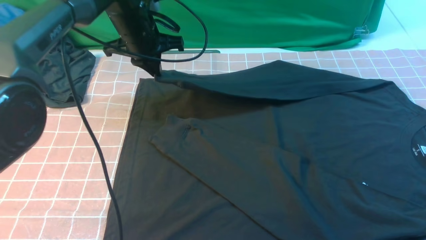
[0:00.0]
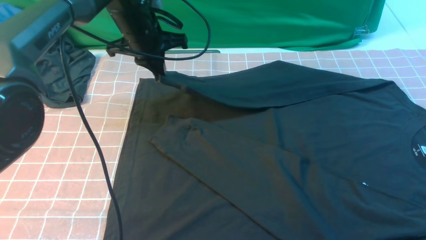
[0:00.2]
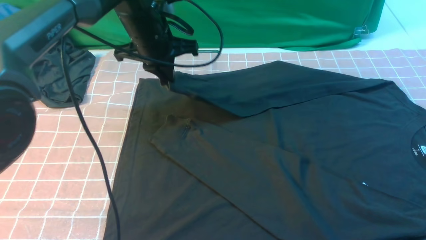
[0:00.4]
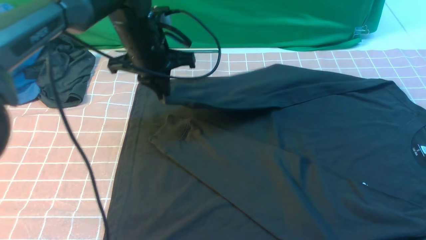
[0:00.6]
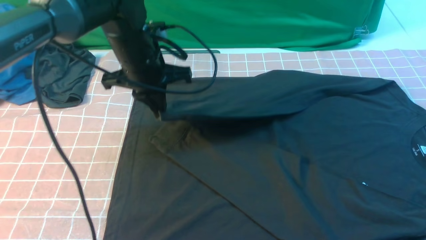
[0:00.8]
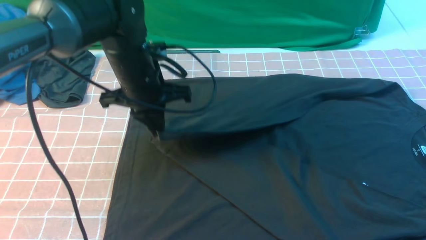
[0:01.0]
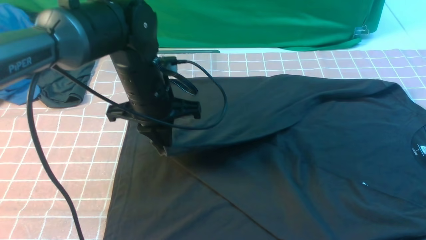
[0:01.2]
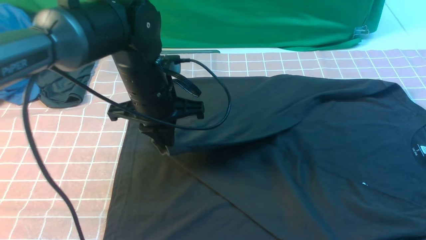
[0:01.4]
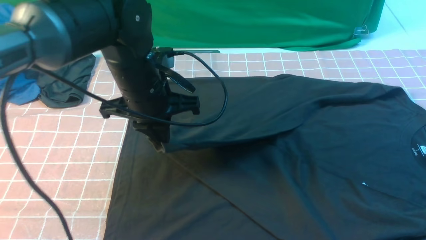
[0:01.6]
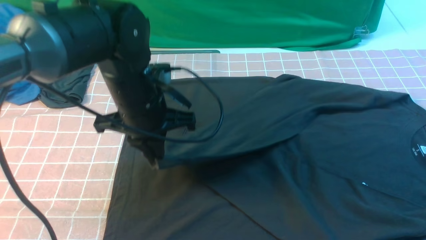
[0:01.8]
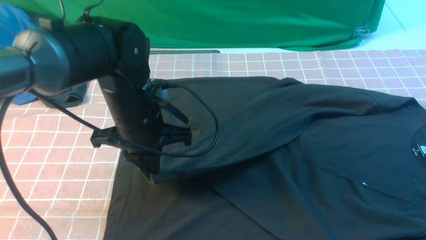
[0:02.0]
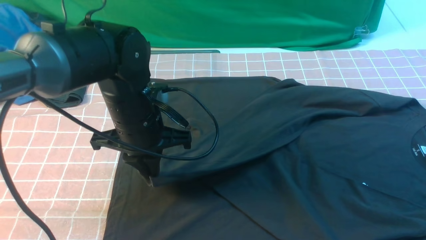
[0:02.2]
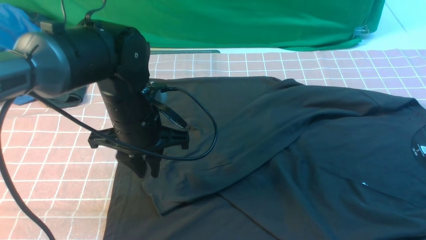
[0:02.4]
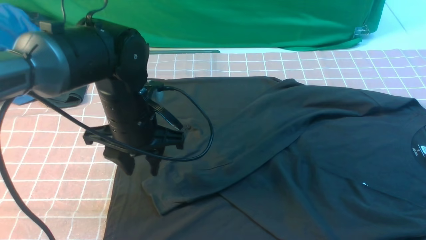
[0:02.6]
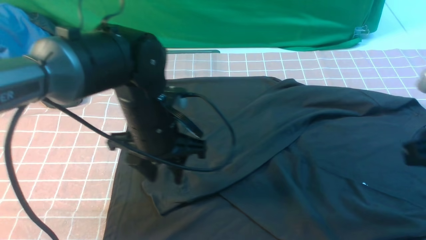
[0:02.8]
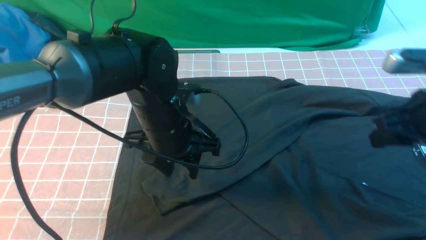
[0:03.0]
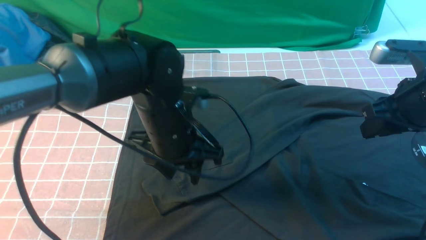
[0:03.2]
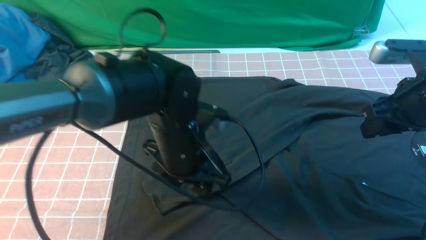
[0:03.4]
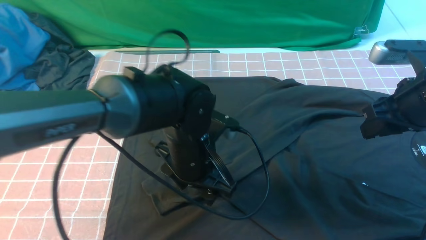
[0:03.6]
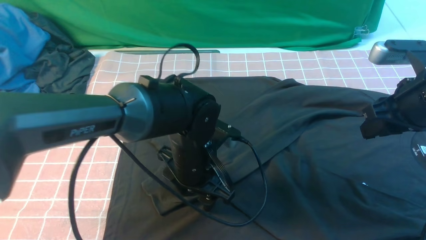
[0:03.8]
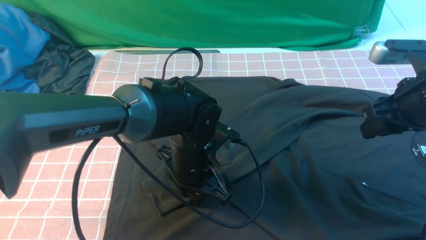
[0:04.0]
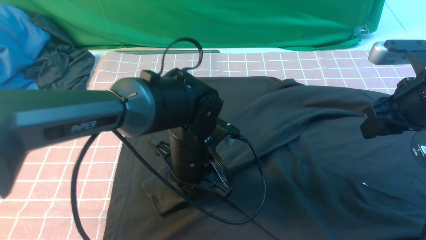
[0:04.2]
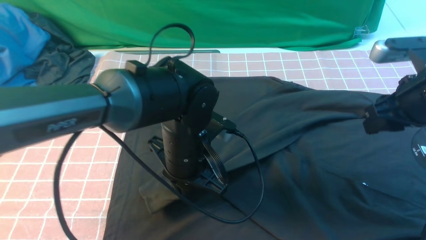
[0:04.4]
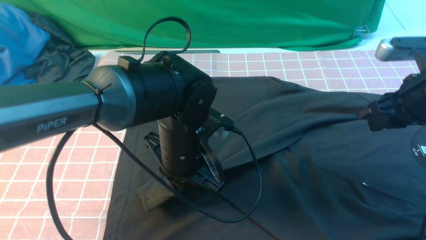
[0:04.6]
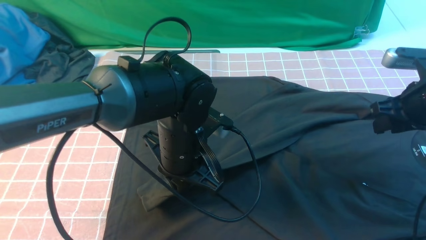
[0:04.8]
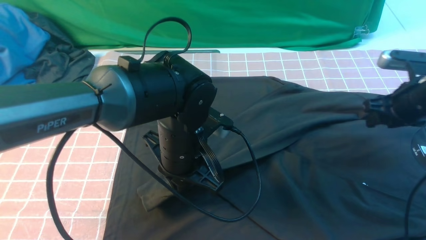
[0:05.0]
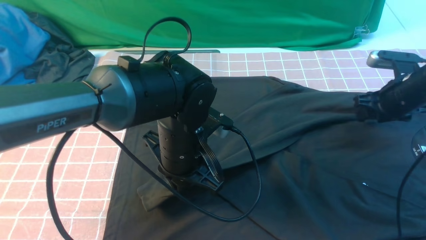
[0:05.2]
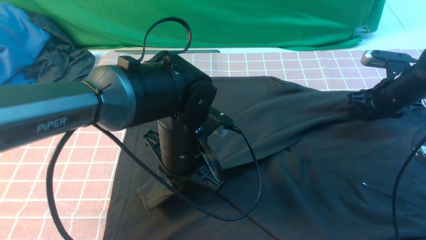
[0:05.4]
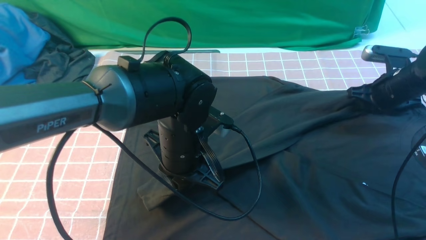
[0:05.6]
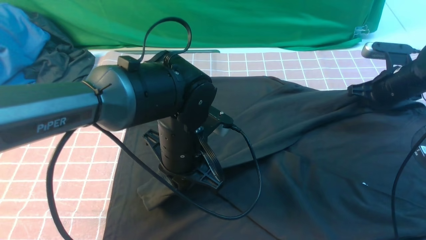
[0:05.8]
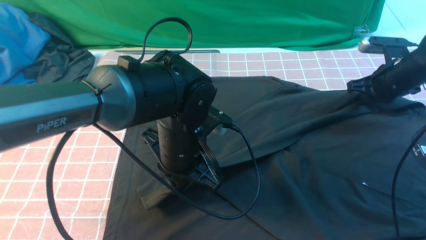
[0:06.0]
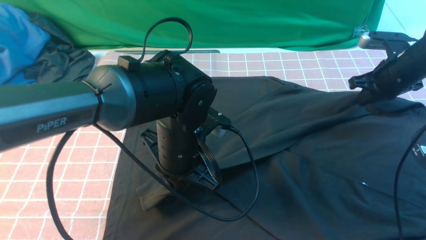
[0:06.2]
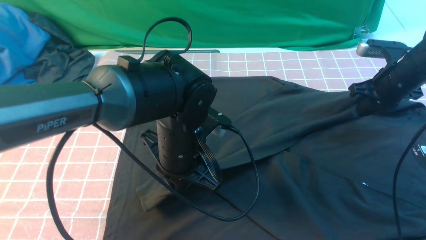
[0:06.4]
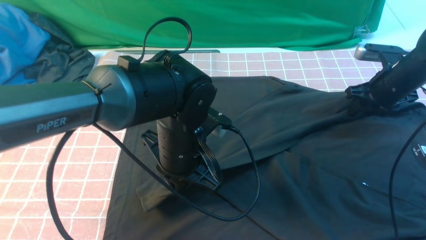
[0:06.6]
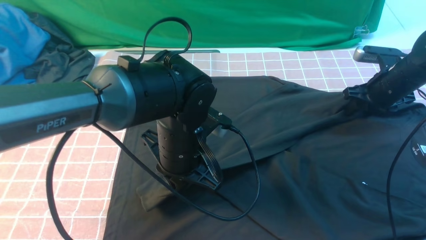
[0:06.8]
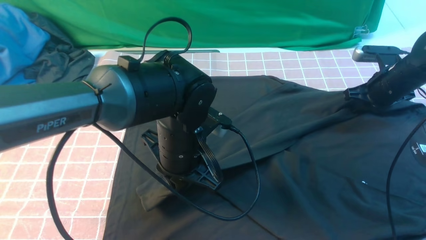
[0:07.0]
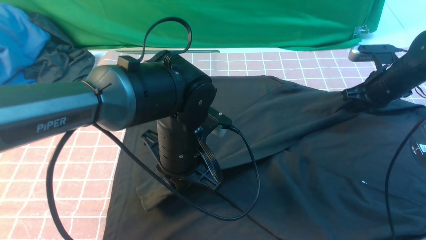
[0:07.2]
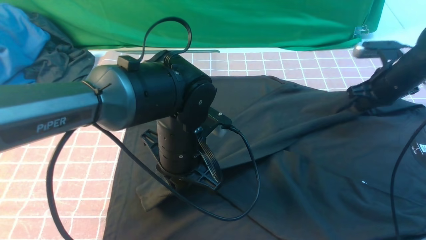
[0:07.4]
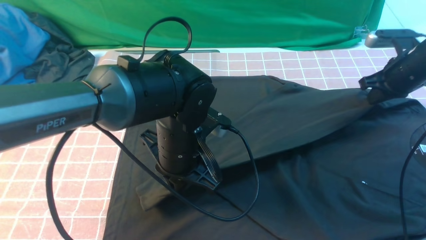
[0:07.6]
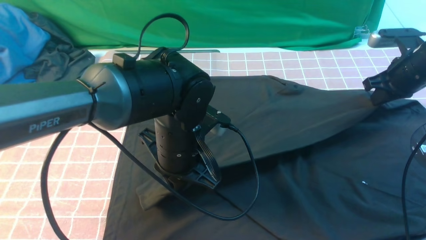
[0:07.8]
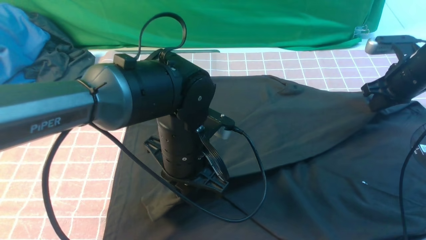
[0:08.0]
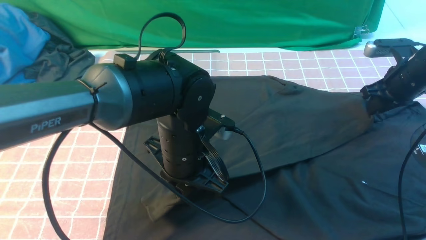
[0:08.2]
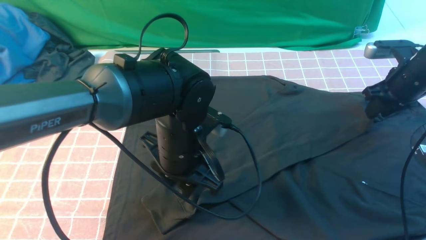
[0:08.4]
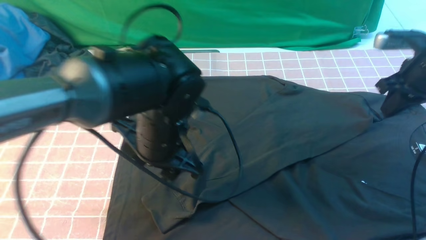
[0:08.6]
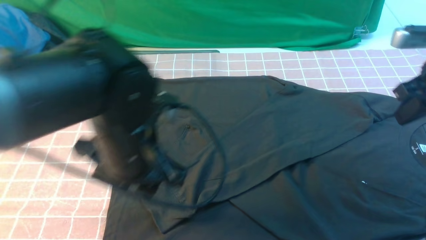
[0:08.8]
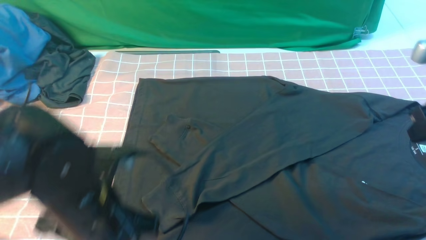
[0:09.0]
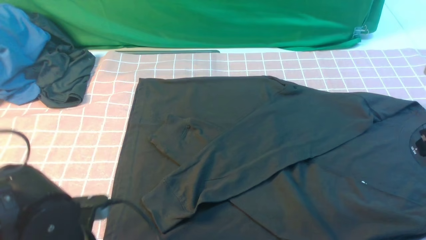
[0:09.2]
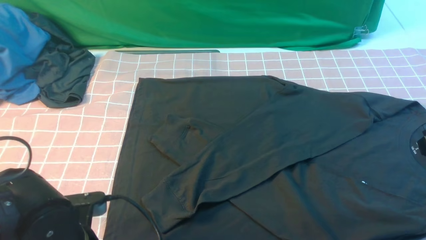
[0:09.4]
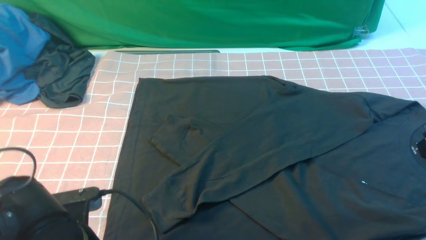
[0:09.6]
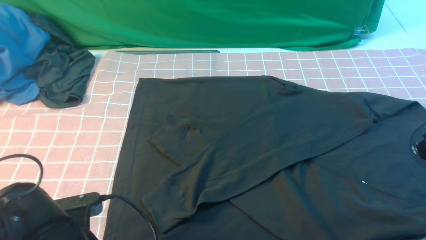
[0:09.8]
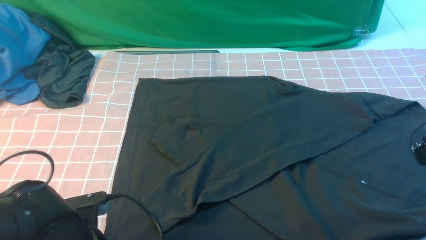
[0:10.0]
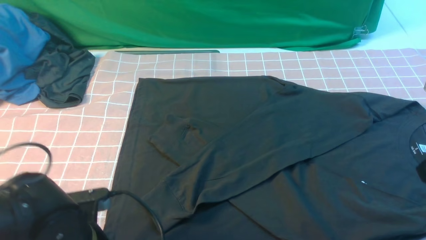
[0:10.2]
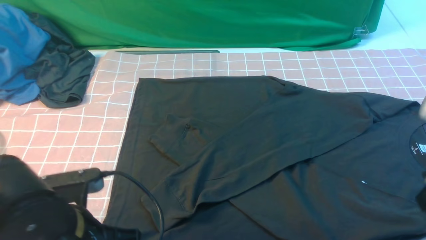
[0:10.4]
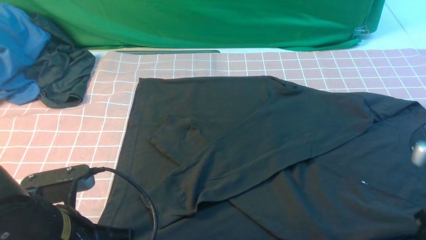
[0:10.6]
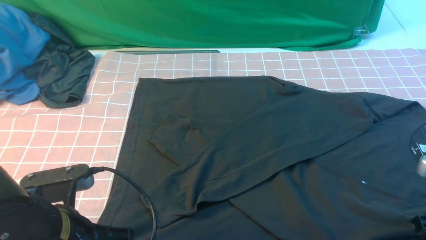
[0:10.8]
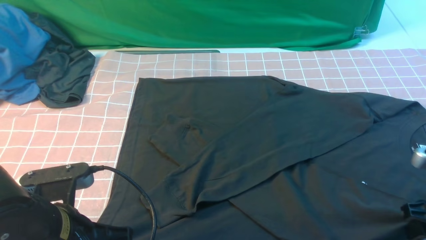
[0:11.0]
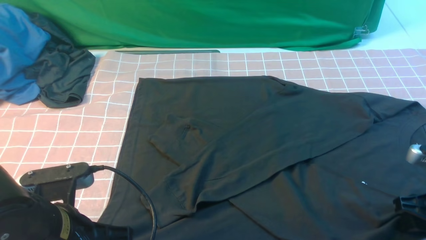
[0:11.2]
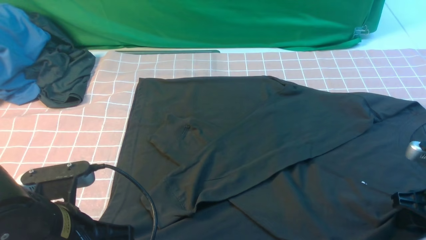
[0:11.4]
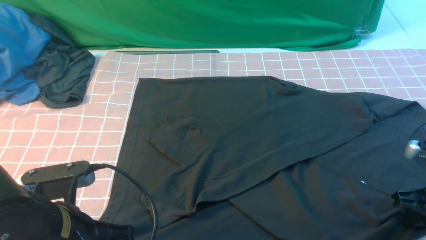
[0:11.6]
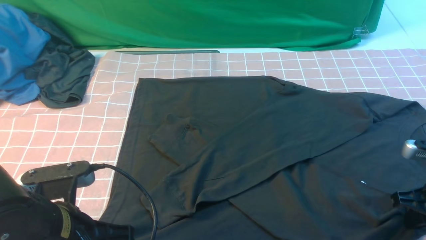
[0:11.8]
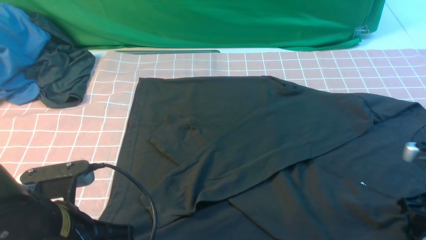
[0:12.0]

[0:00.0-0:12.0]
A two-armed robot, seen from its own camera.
Step, 0:00.0 to 0:02.8: use the left arm to drag and drop the cuff onto the cuff closest to the left arm.
0:00.0 to 0:01.6: The left gripper is displaced backward by approximately 15 cm.
0:01.6 to 0:03.0: The right gripper moves forward, about 10 cm, while the left gripper shifts by some 5 cm, and opens.
0:03.0 to 0:04.4: The left gripper closes up.
0:04.4 to 0:06.0: The right gripper is displaced forward and downward by about 15 cm, and closes up.
0:06.0 to 0:07.6: The right gripper opens, then closes again.
0:07.6 to 0:09.0: The right gripper travels backward and upward by some 20 cm, and opens and closes again. The left gripper moves backward and to the left, some 15 cm, and opens.
0:09.0 to 0:10.4: The right gripper heads backward, covering roughly 5 cm. Meanwhile the left gripper closes.
0:10.4 to 0:12.0: The right gripper heads downward, covering roughly 5 cm, and opens, then closes once more.

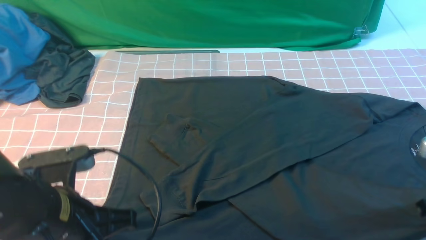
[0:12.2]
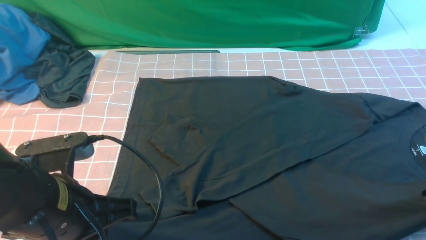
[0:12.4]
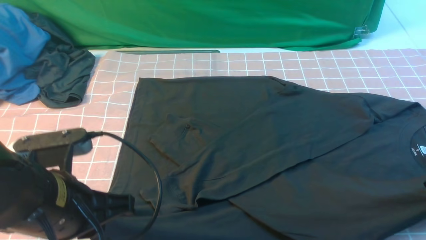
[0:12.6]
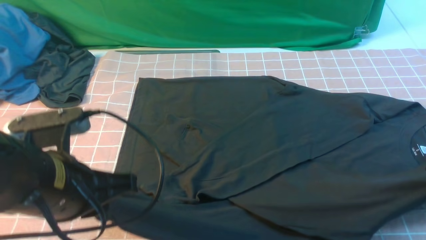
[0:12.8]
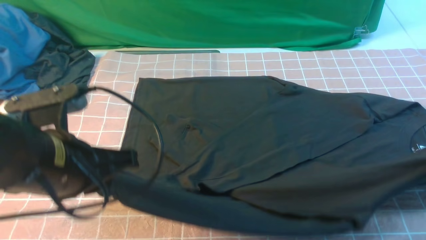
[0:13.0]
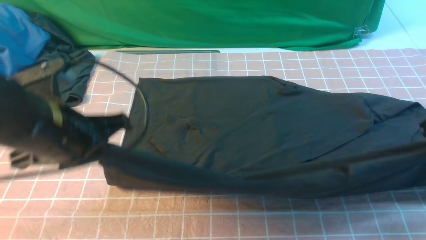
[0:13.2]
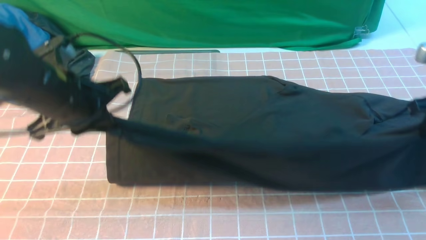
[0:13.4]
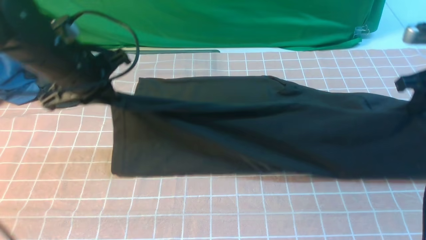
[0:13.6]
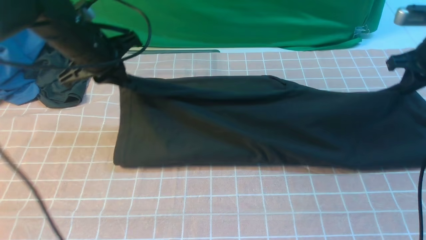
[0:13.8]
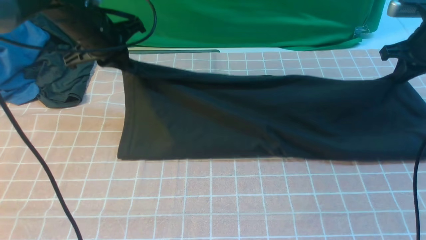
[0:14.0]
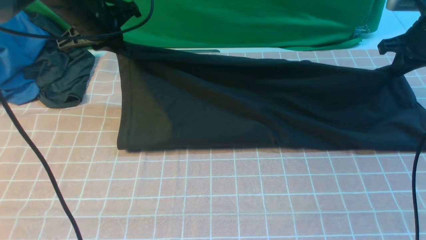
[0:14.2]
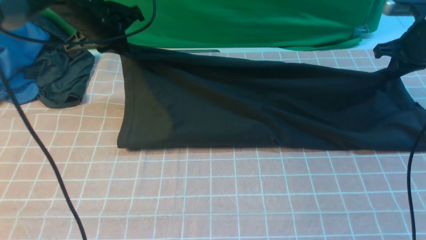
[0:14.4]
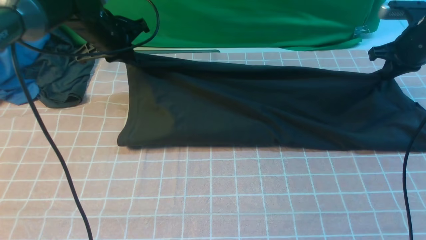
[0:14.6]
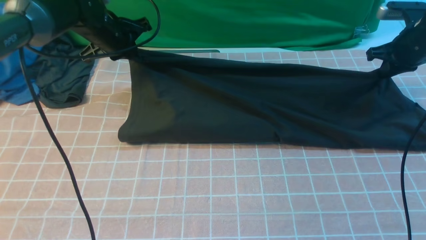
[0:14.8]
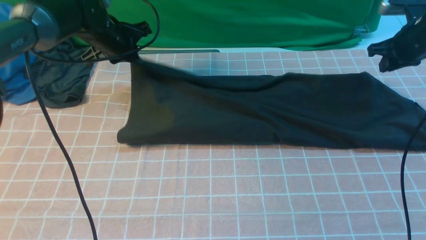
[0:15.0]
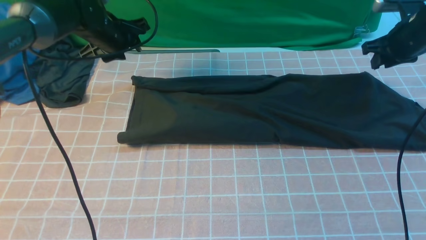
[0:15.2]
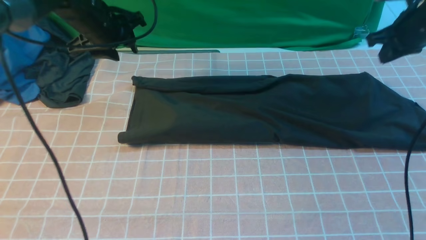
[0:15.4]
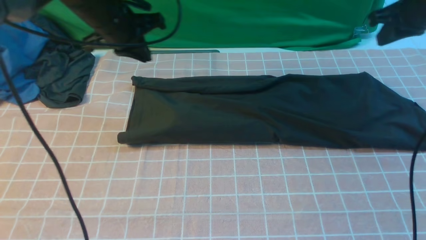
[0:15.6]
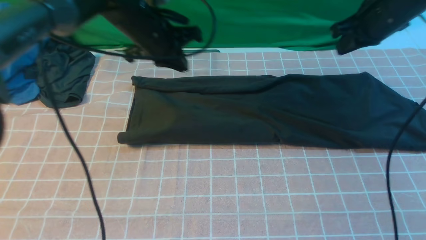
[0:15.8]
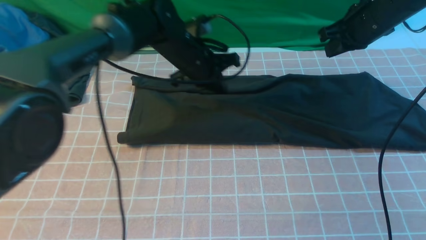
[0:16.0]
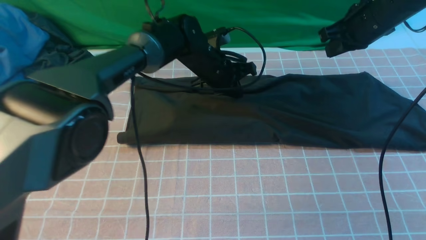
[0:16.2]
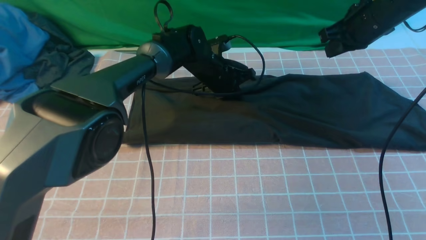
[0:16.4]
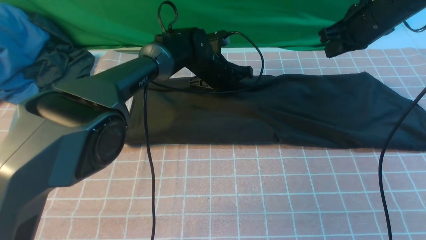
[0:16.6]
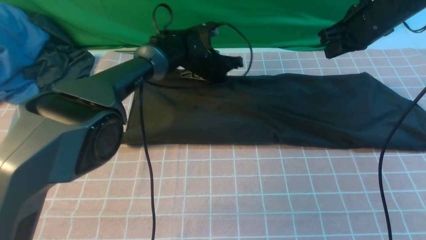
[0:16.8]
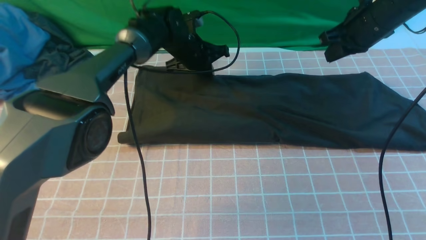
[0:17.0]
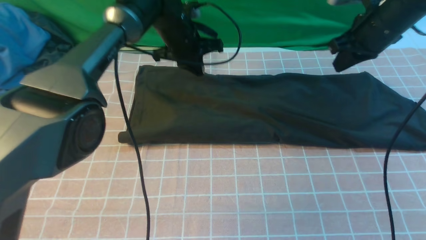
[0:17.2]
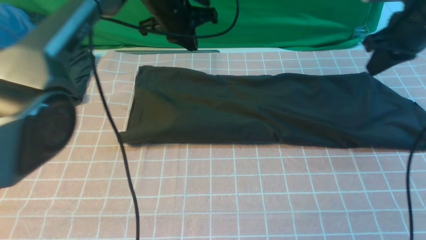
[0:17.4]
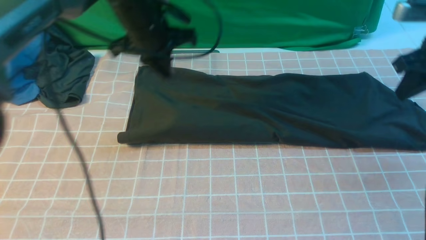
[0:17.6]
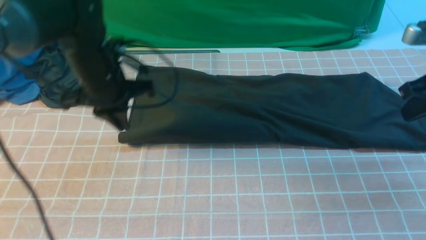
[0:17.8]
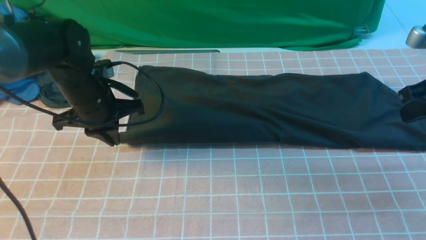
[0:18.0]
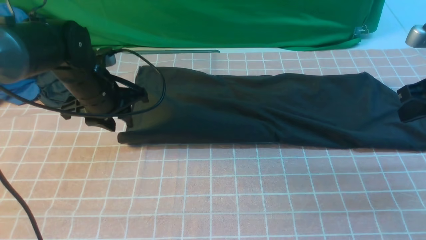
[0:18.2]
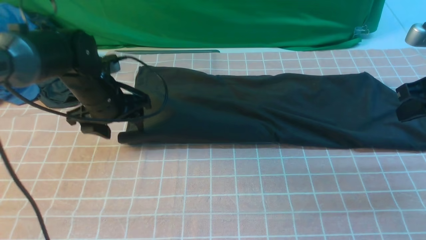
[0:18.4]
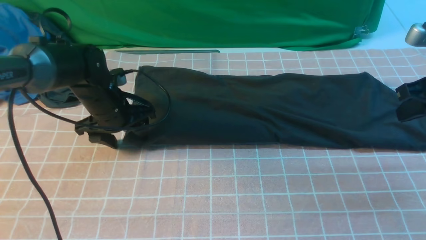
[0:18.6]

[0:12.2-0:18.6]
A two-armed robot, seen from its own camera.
Step, 0:12.2 to 0:15.2: use both arms to drag the lower edge of the fabric forward and fold it over the upper edge.
0:12.2 to 0:13.8: The grippers both shift forward by some 25 cm.
0:13.8 to 0:15.4: The left gripper heads forward, covering roughly 5 cm, and opens up. Meanwhile the right gripper moves about 5 cm.
0:15.4 to 0:17.0: The right gripper moves to the left, some 5 cm, while the left gripper is displaced to the right, downward and forward by some 15 cm, and closes its fingers.
0:17.0 to 0:18.6: The right gripper heads backward and to the right, covering about 15 cm, while the left gripper travels backward and to the left by about 20 cm, and opens up.
